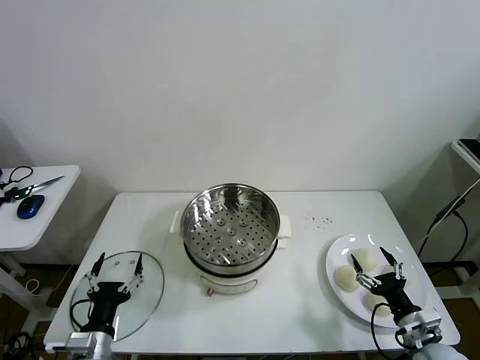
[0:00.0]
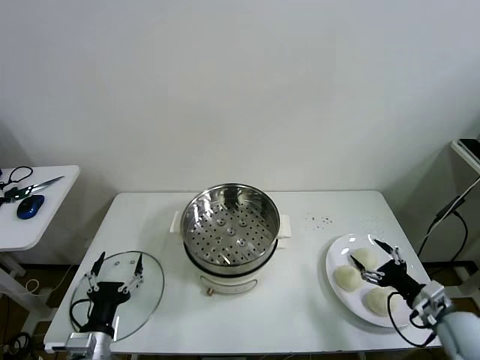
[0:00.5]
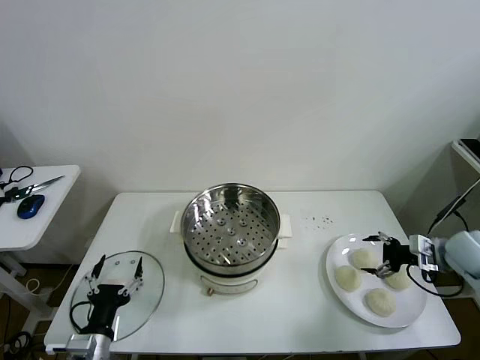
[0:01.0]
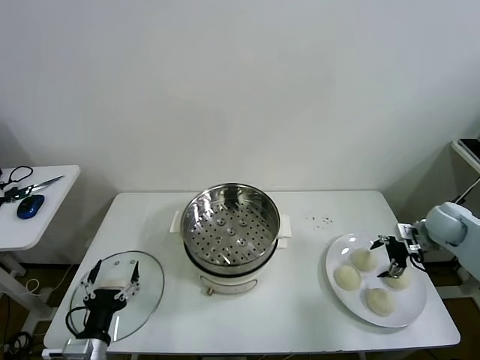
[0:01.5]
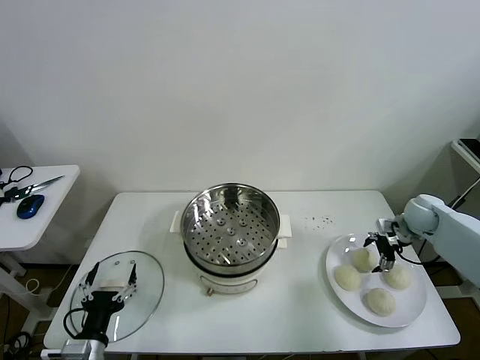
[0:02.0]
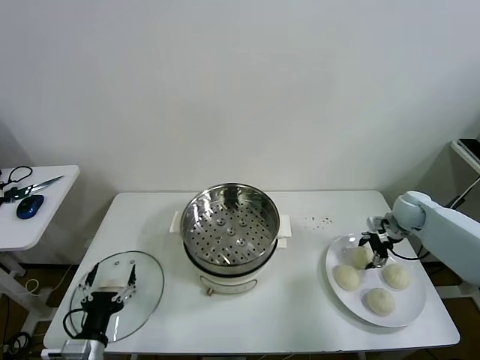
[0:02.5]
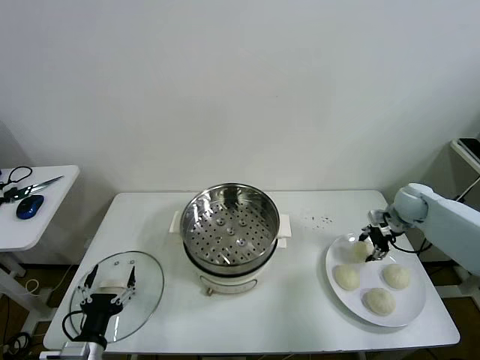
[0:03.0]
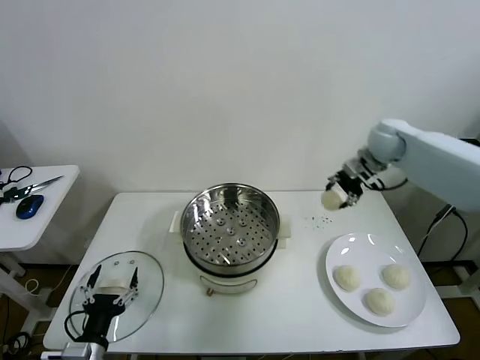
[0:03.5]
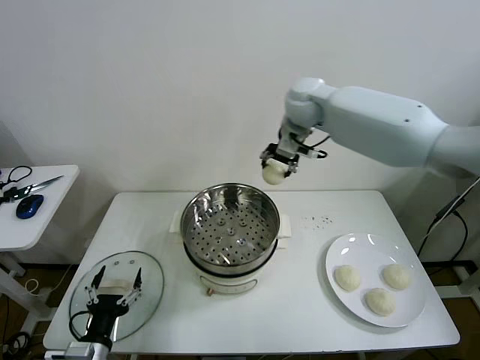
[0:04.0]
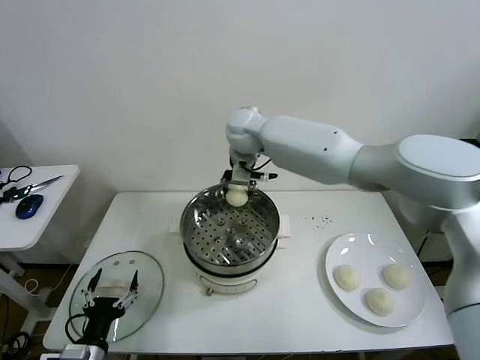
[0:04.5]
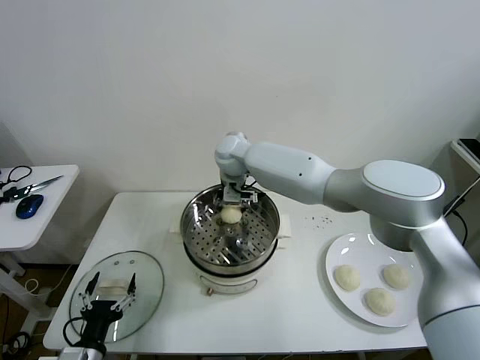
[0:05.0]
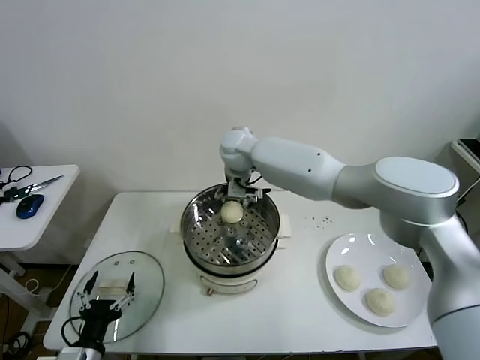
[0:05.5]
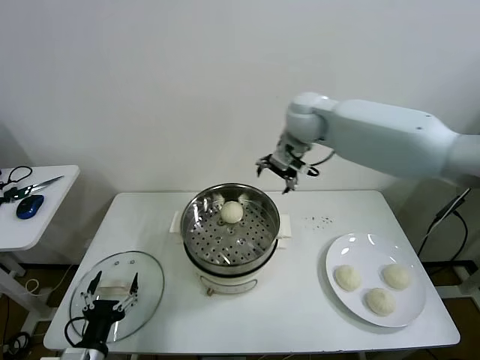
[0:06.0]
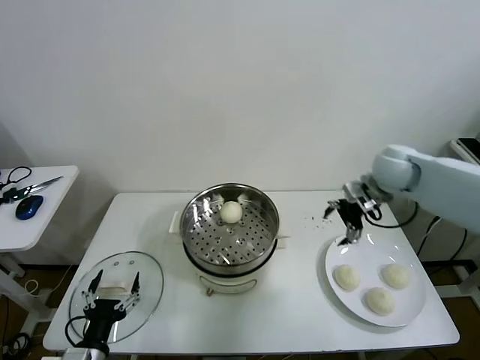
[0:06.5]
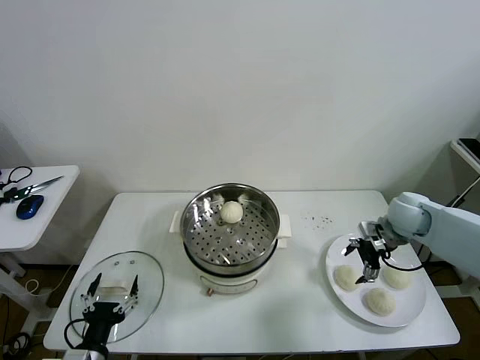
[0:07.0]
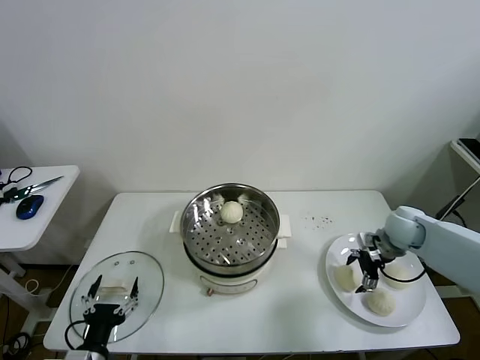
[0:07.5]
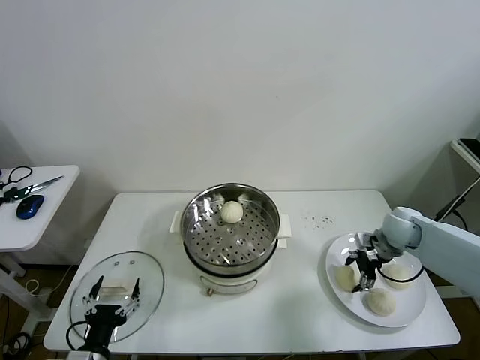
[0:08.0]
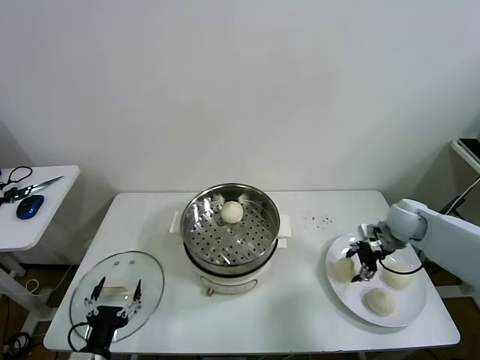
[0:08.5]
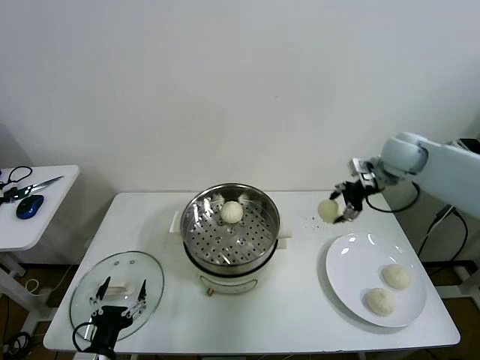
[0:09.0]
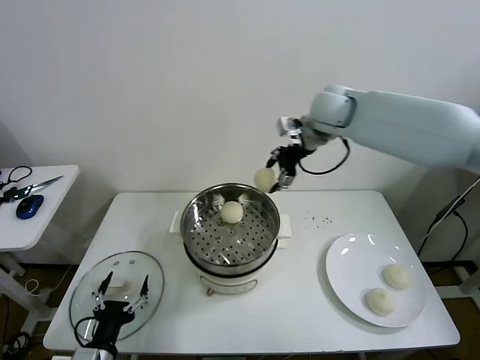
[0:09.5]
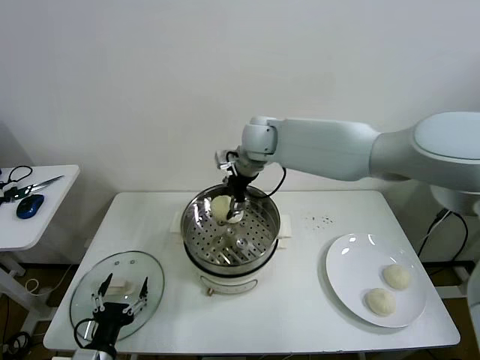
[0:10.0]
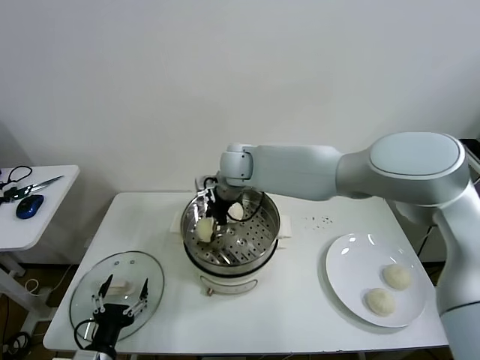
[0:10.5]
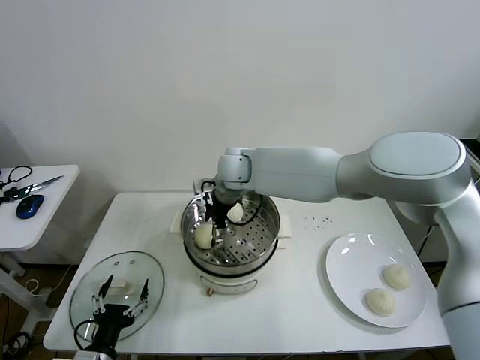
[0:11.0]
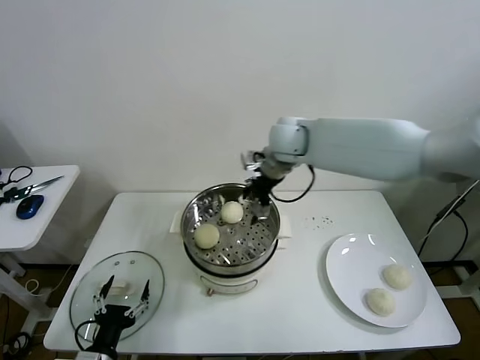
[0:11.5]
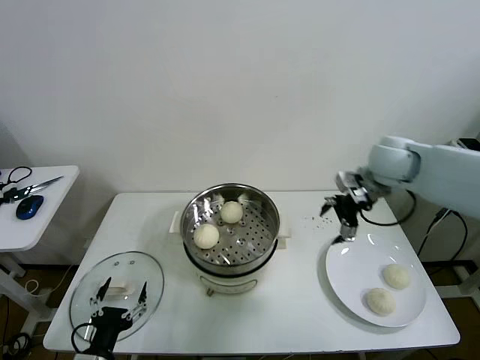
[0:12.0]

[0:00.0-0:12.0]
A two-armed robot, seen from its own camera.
Task of the whole recording: take steamed baozi put them in steamer then cover it.
Step, 0:00.0 to 0:02.5: Grasp the baozi in the plate with right gripper.
Step, 0:03.0 to 0:05.0: Place the baozi on the steamer with right gripper.
Step, 0:05.5 to 0:08.0: Grasp the baozi in the plate with right gripper.
Step, 0:08.5 to 0:11.0: Place the baozi on the steamer with right gripper.
0:02.0 to 0:04.0: The right gripper moves to the left and upward, roughly 50 cm, and closes.
0:04.0 to 0:06.0: The right gripper travels to the right by roughly 10 cm, and opens.
0:06.0 to 0:08.0: The right gripper is displaced downward and to the right by approximately 35 cm, and closes.
0:08.0 to 0:10.0: The right gripper is displaced to the left and upward by about 40 cm.
0:10.0 to 0:12.0: The right gripper travels to the right by about 30 cm, and opens.

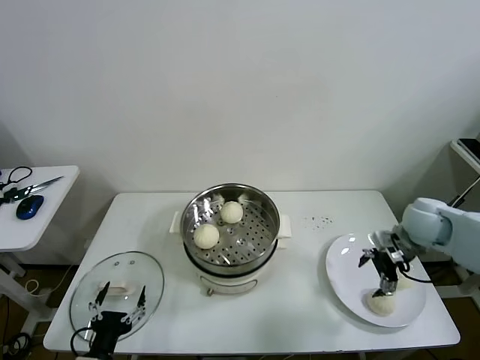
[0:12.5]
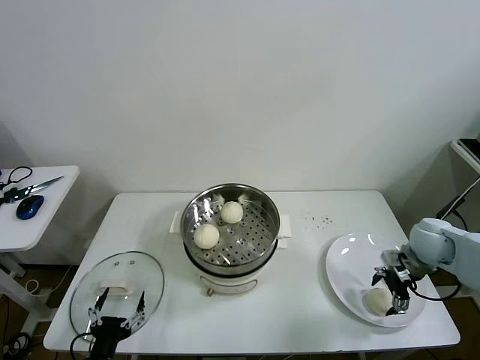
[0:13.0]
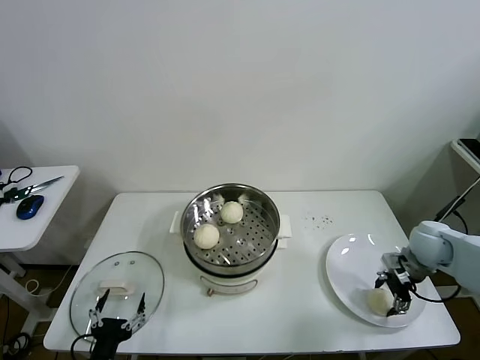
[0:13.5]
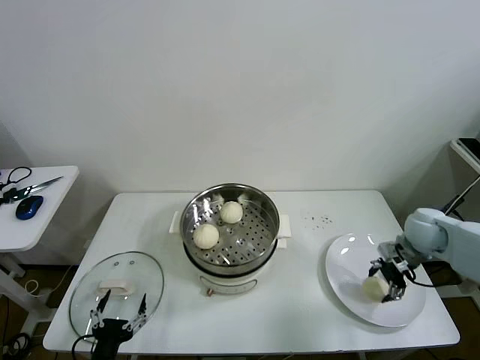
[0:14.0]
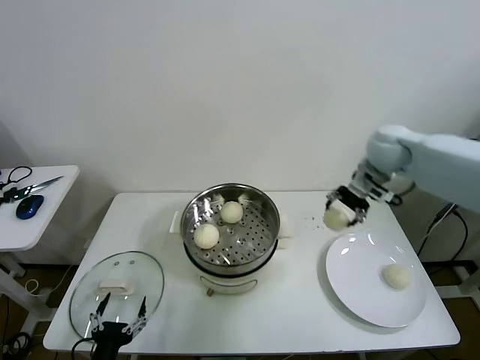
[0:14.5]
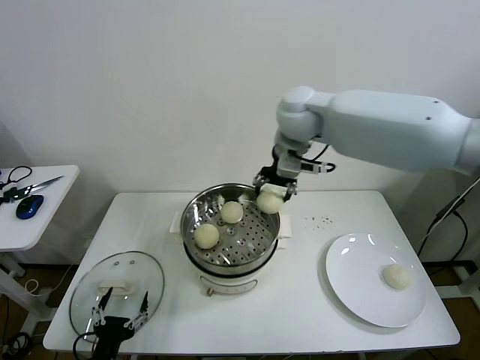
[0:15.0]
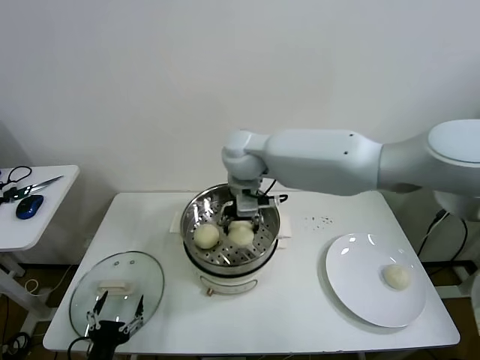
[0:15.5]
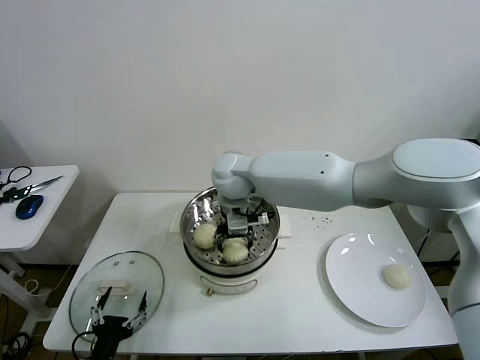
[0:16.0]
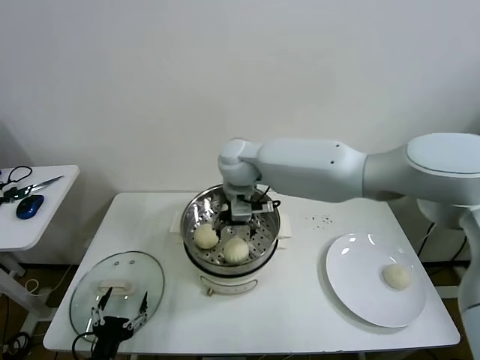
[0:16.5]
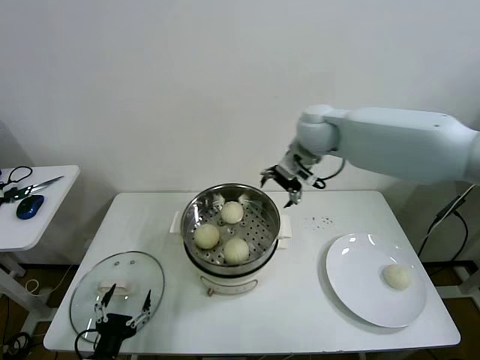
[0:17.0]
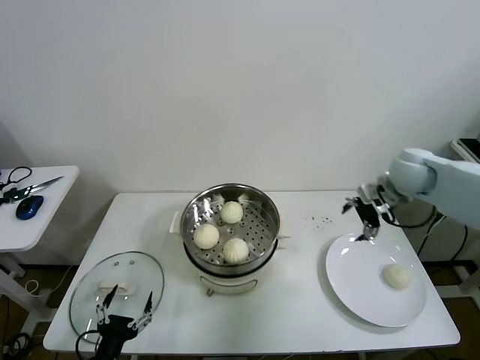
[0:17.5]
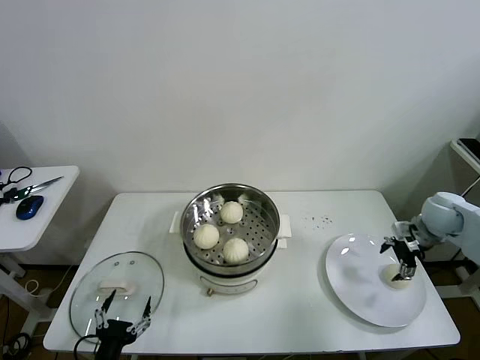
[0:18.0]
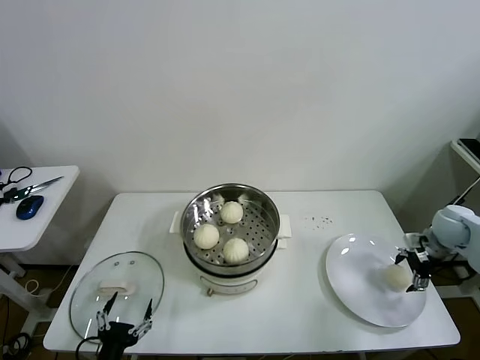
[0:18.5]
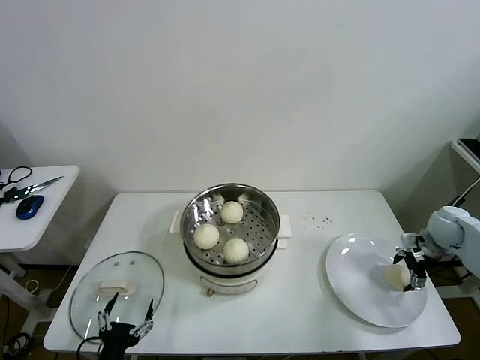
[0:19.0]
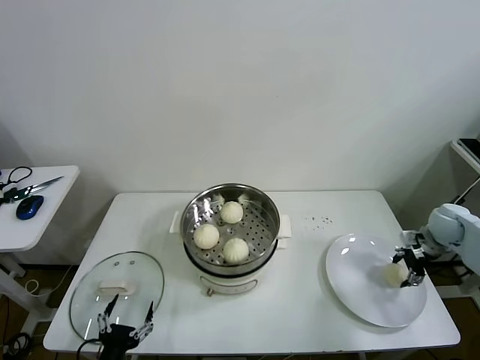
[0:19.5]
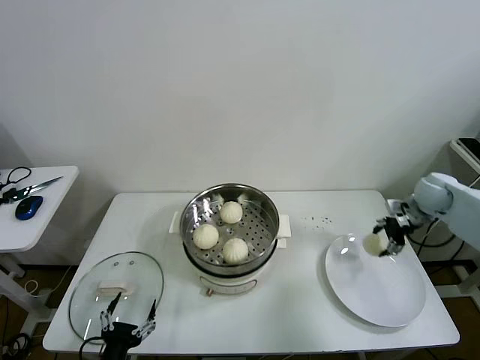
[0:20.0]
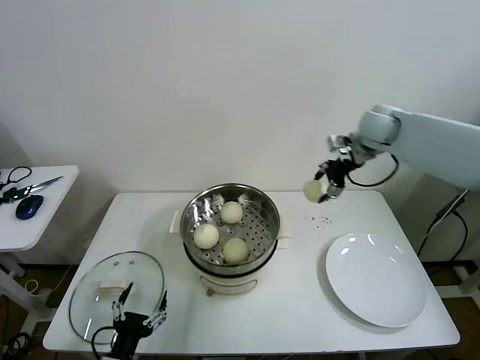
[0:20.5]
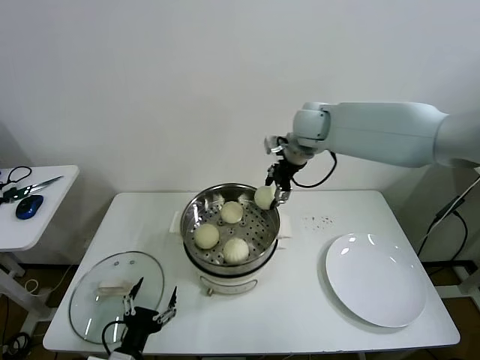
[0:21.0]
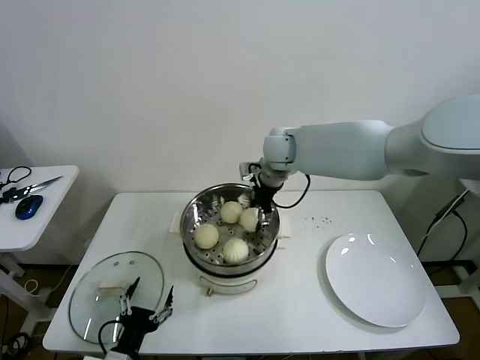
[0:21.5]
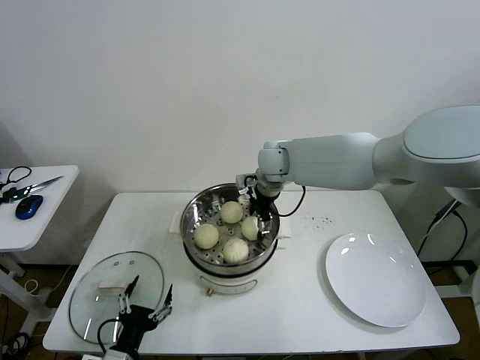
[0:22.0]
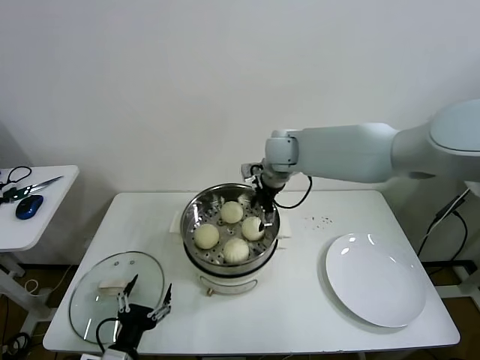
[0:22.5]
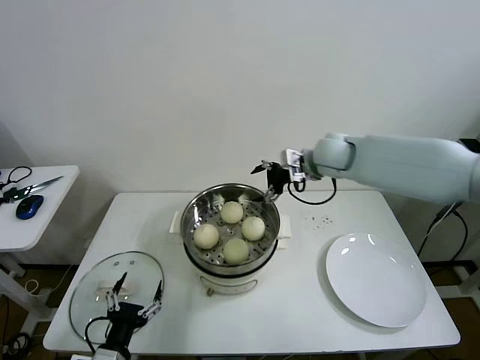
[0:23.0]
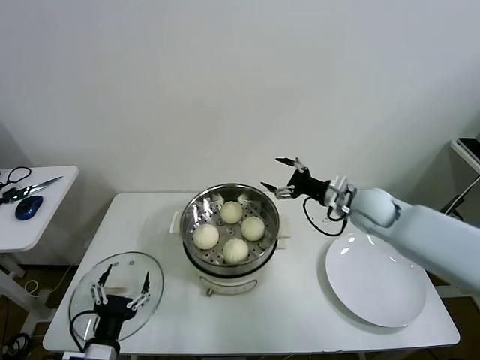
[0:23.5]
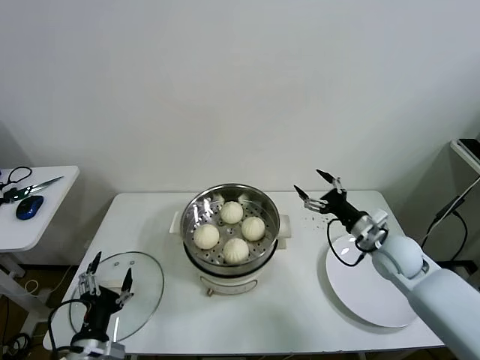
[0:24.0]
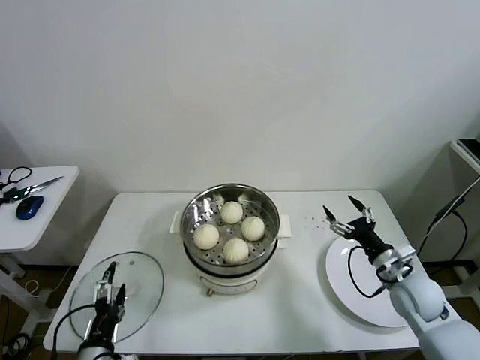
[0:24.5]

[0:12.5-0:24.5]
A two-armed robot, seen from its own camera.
Task of the whole recording: take steamed baozi put them in steamer then cover it.
Step, 0:14.0 to 0:16.0: Place the baozi on the steamer with right gripper.
Step, 0:16.5 to 0:19.0: Grasp the baozi in the plate with right gripper.
Step, 0:19.5 to 0:22.0: Place the baozi on the steamer with right gripper.
0:12.5 to 0:14.5: The right gripper is displaced upward, to the left and forward by some 20 cm, and closes its fingers.
0:14.5 to 0:16.5: The right gripper goes roughly 30 cm to the left, and opens.
0:16.5 to 0:18.5: The right gripper goes about 50 cm to the right.
0:18.5 to 0:20.5: The right gripper goes about 30 cm upward, to the left and forward, and closes up.
0:20.5 to 0:22.5: The right gripper shifts roughly 20 cm to the left, and opens up.
0:22.5 to 0:24.5: The right gripper heads to the right, backward and downward, covering approximately 40 cm.

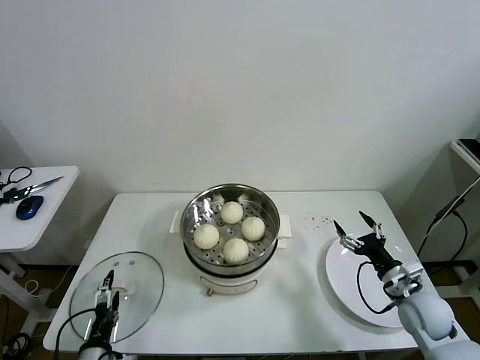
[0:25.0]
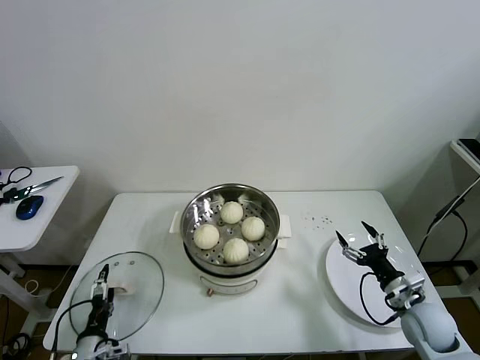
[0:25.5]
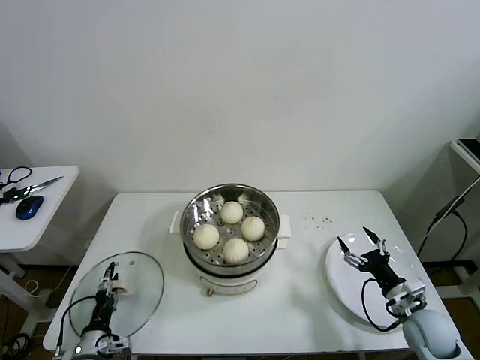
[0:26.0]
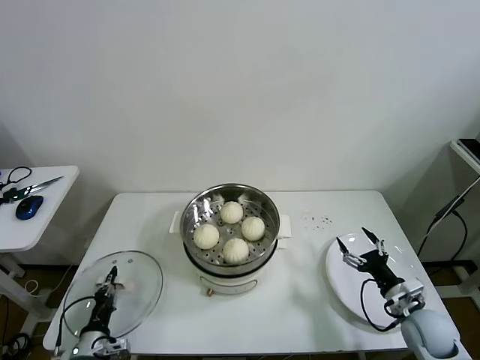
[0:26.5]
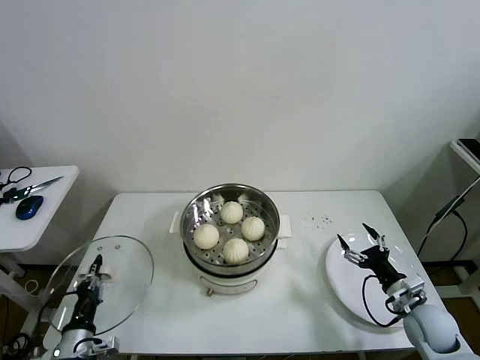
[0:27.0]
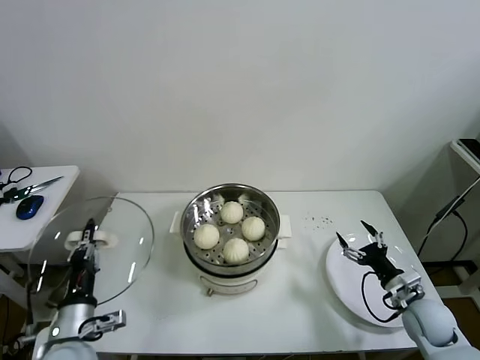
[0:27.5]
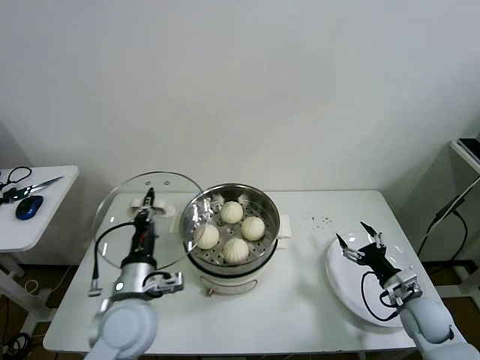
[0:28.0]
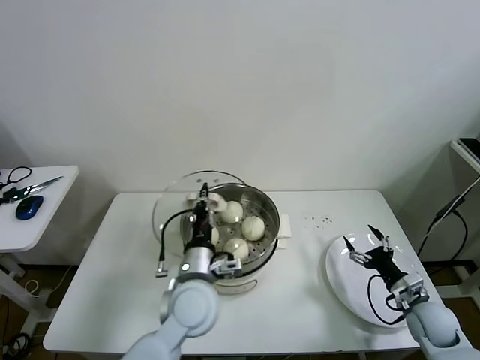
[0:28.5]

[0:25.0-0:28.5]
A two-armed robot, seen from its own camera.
Task of the whole recording: take steamed baozi put them in steamer then cover it.
0:25.0 to 0:27.0: The left gripper shifts by approximately 5 cm, and closes.
0:27.0 to 0:28.5: The left gripper heads to the right, upward and forward, covering some 30 cm.
